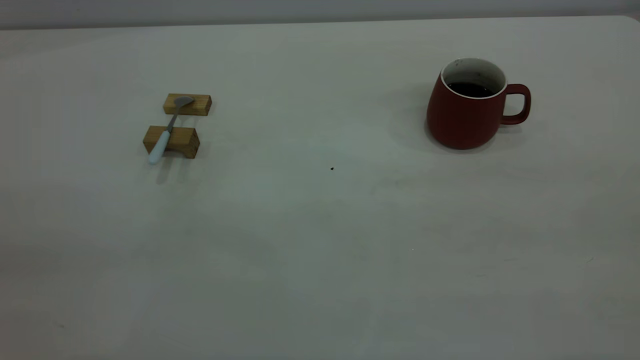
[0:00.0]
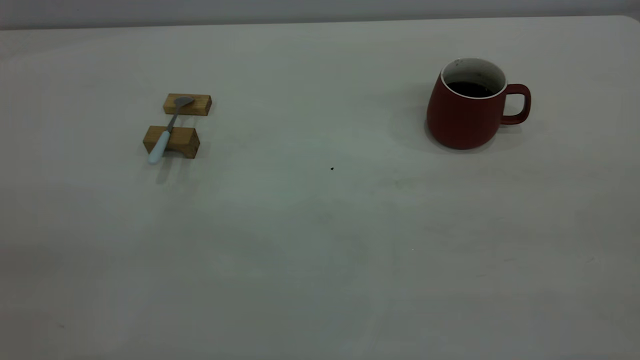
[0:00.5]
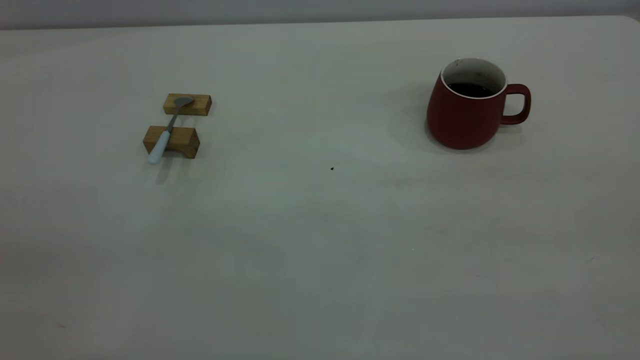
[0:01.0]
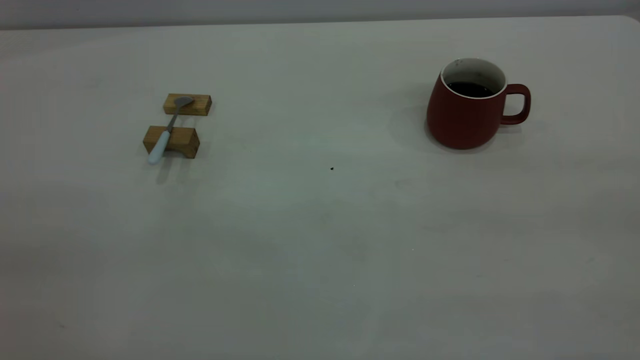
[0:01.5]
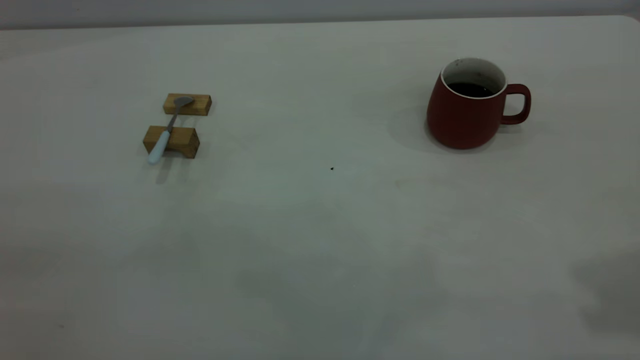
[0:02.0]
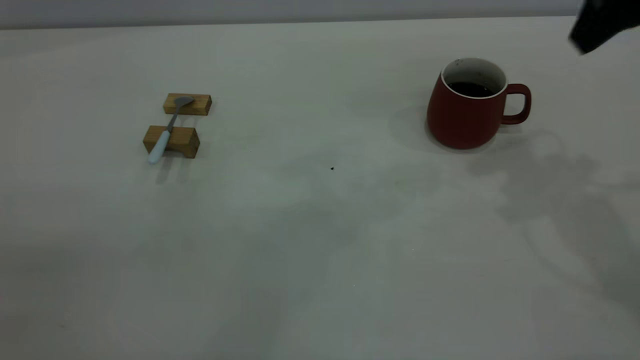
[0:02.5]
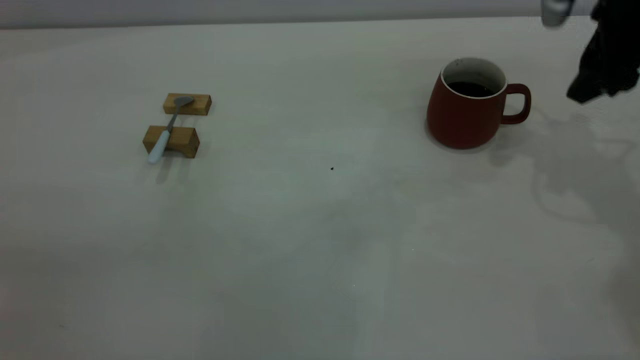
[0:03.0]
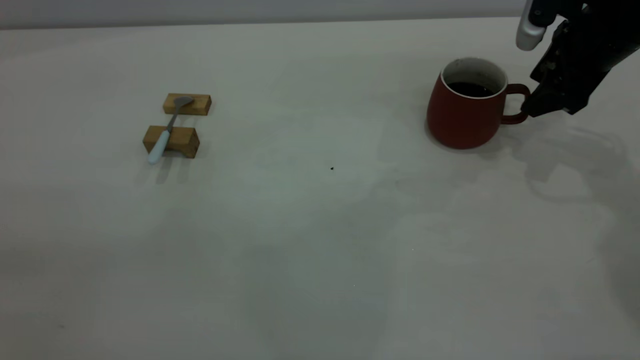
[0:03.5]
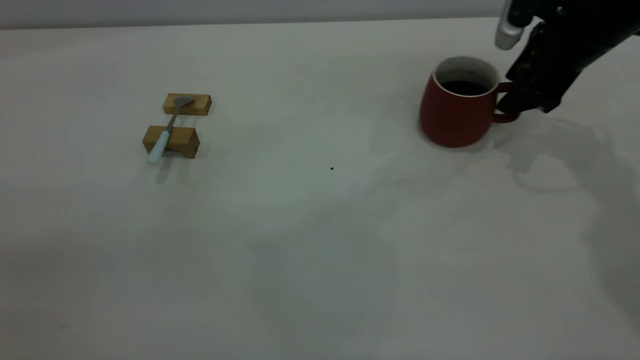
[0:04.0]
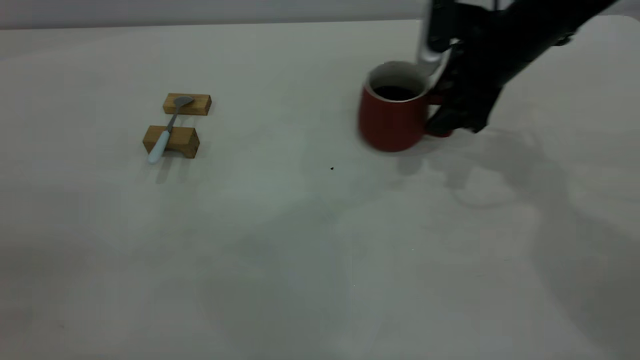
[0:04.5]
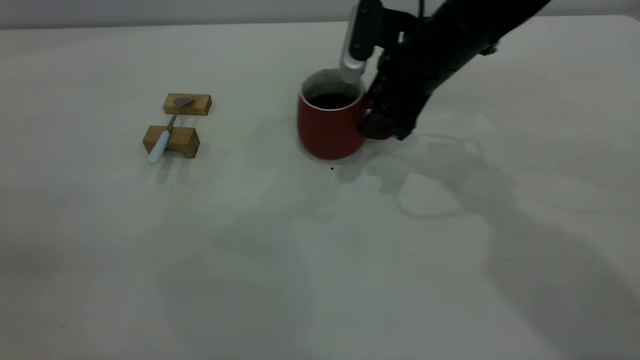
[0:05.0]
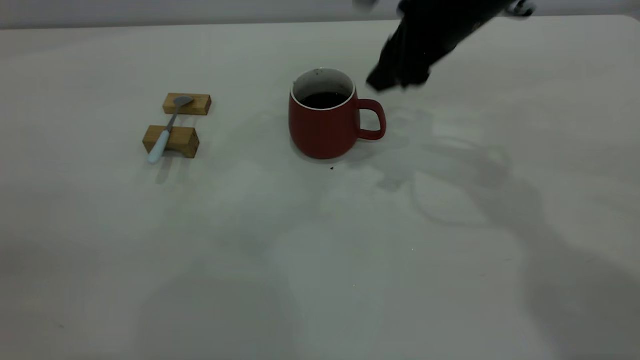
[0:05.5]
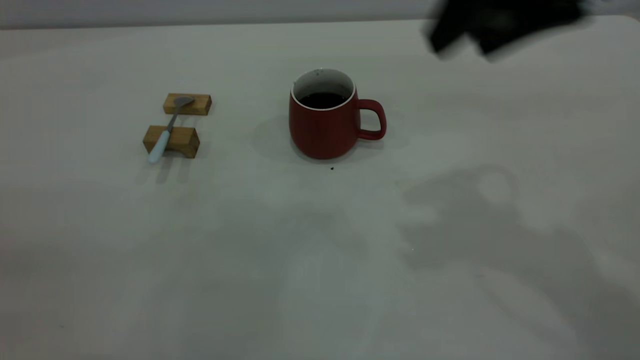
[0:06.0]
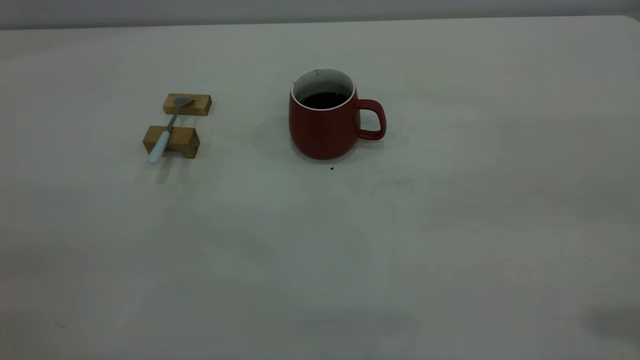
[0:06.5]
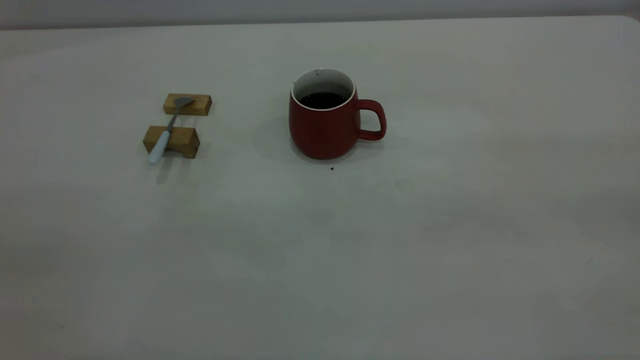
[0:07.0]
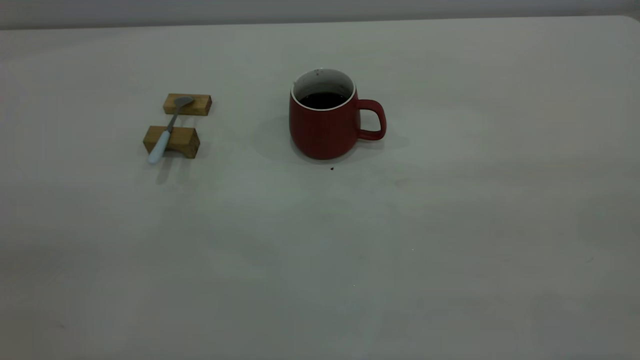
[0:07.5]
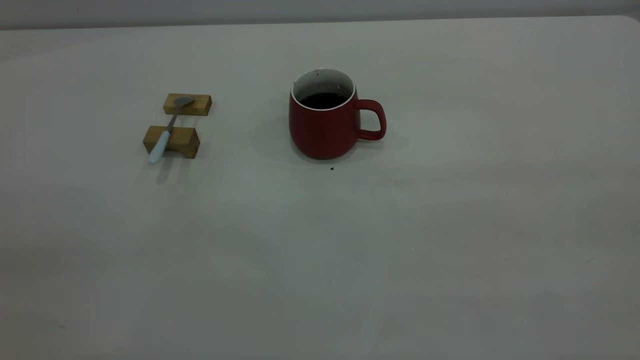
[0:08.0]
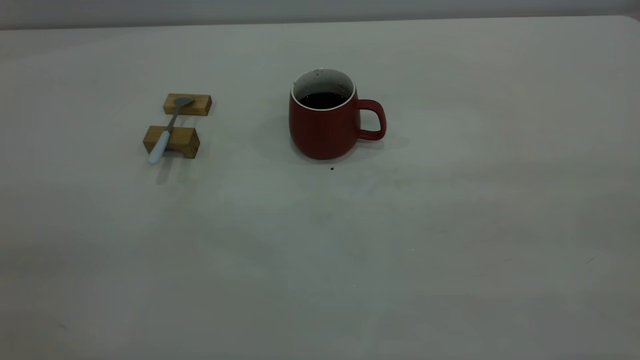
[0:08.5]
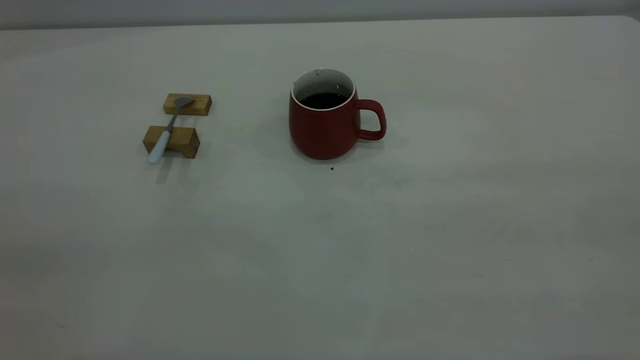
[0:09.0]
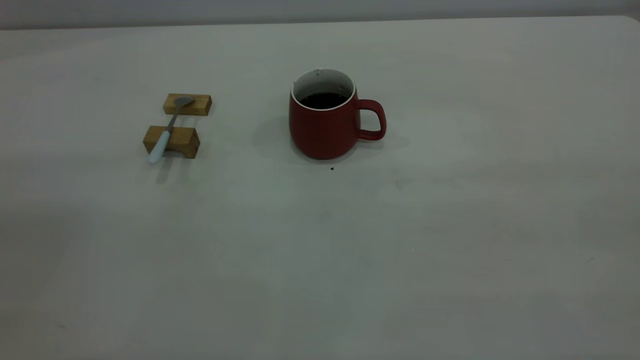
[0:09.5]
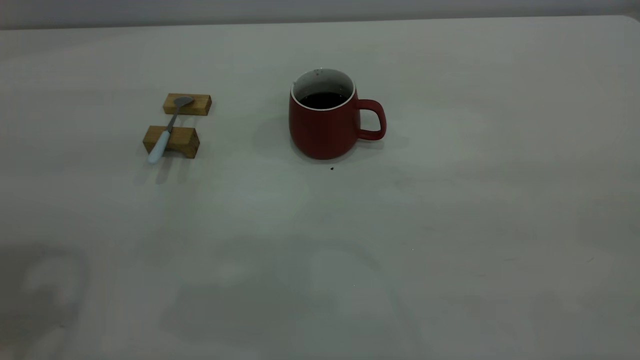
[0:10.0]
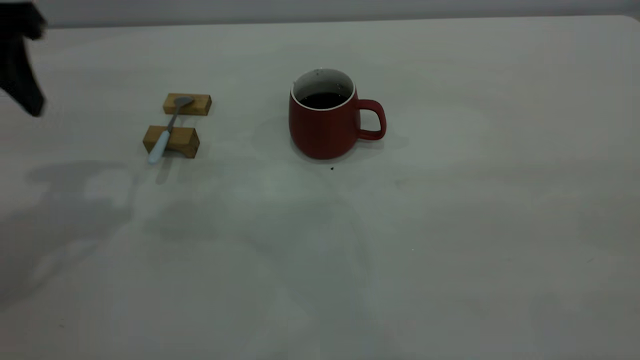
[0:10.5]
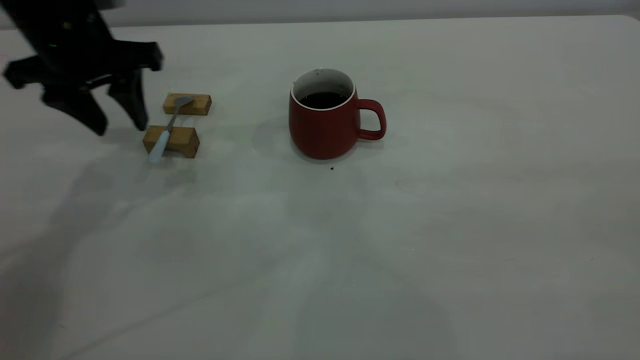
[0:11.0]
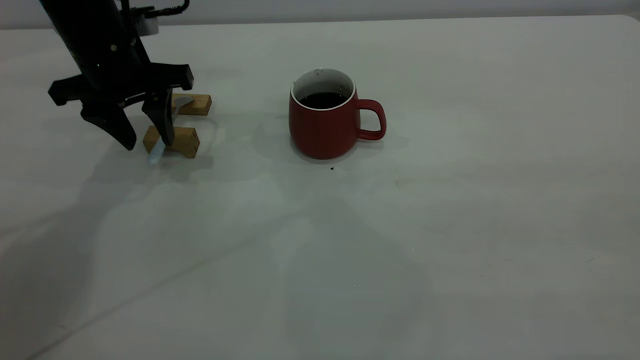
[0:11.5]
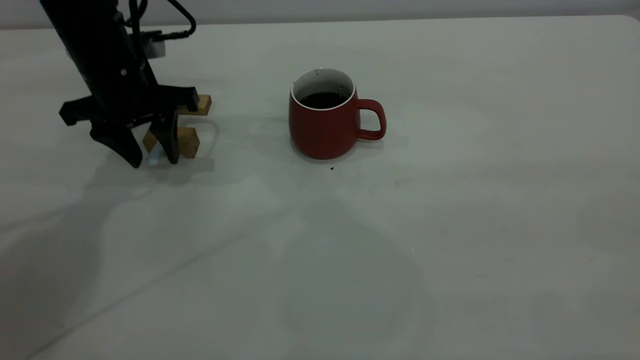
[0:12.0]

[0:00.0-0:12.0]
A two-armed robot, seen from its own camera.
Step, 0:00.0 to 0:05.5: Move the cup with coffee to the center of view.
0:02.0 to 0:04.0: The right gripper moves forward and downward, some 35 cm.
0:04.0 to 0:06.0: The right gripper moves upward, backward and to the left, roughly 25 cm.
0:06.0 to 0:08.0: The right gripper is displaced backward and to the right by about 30 cm.
0:10.0 to 0:12.0: The left gripper heads downward and forward, covering approximately 30 cm.

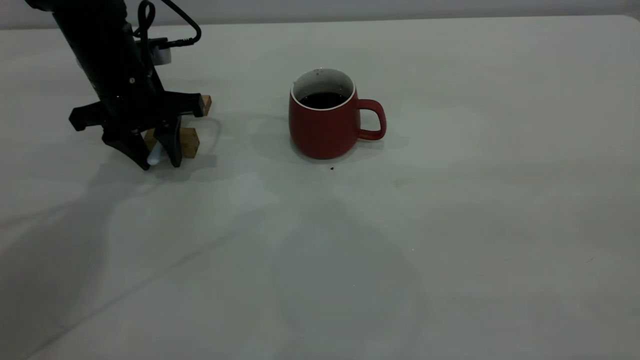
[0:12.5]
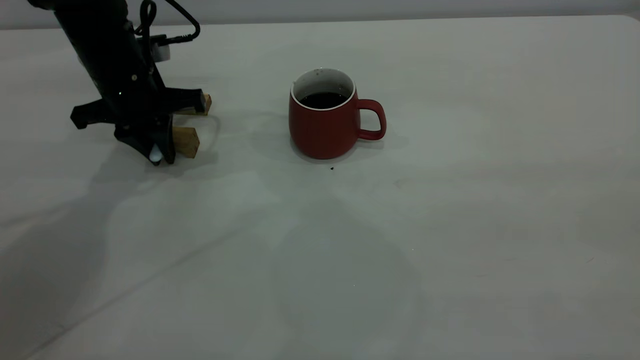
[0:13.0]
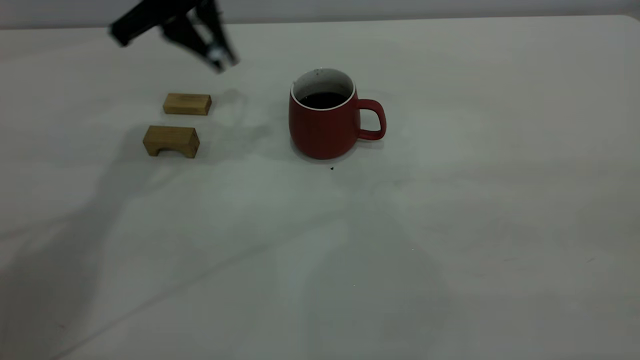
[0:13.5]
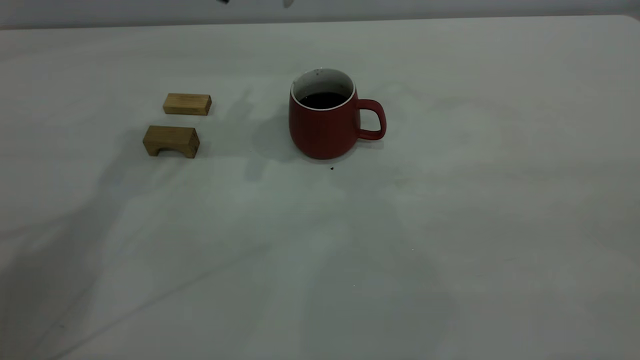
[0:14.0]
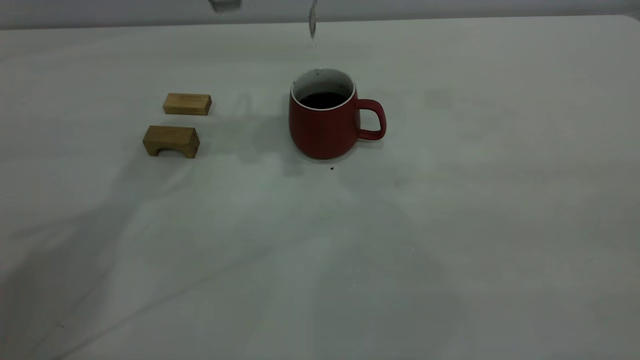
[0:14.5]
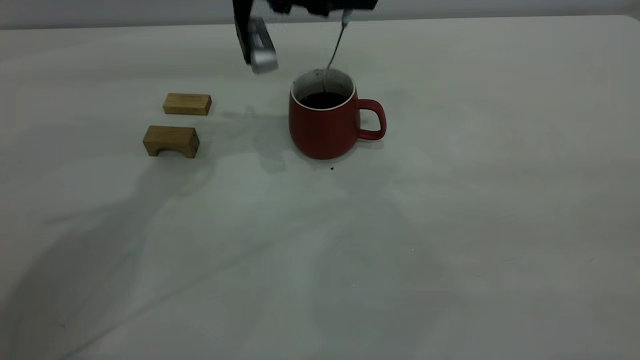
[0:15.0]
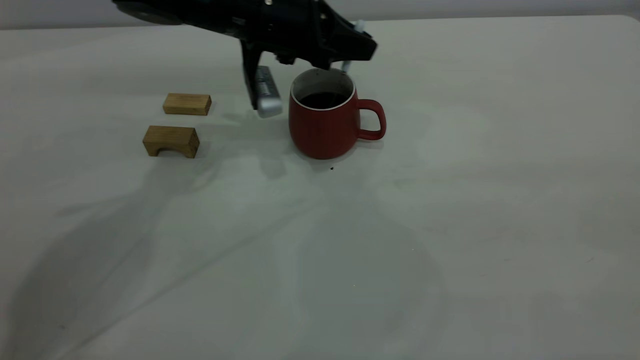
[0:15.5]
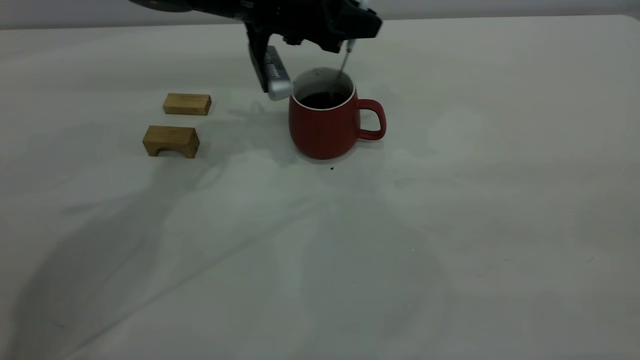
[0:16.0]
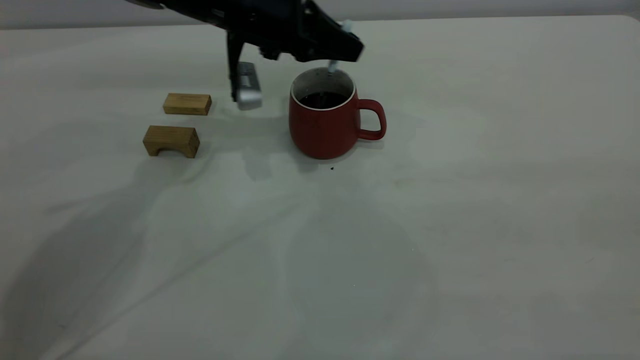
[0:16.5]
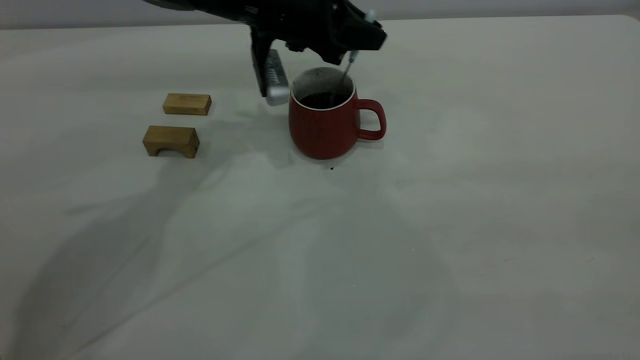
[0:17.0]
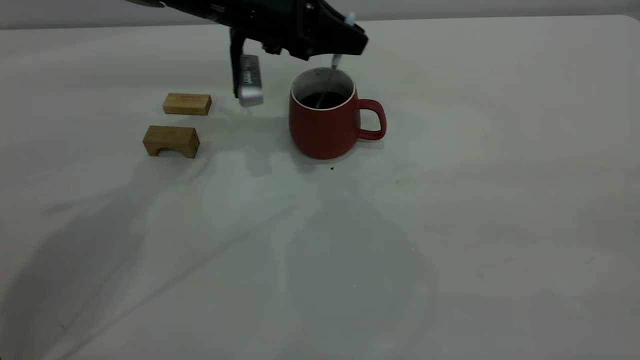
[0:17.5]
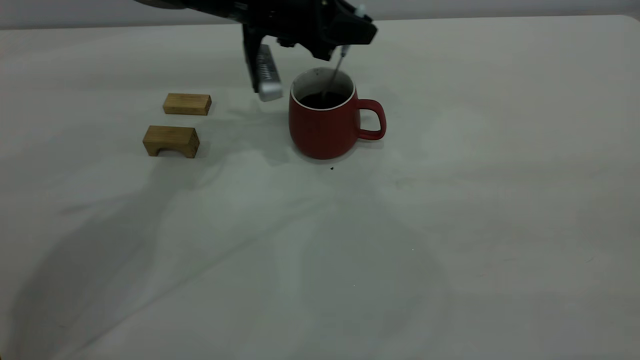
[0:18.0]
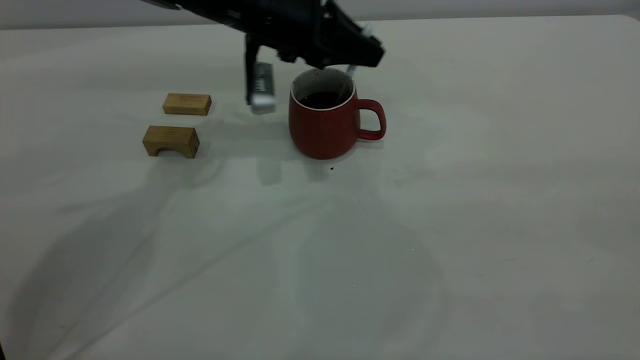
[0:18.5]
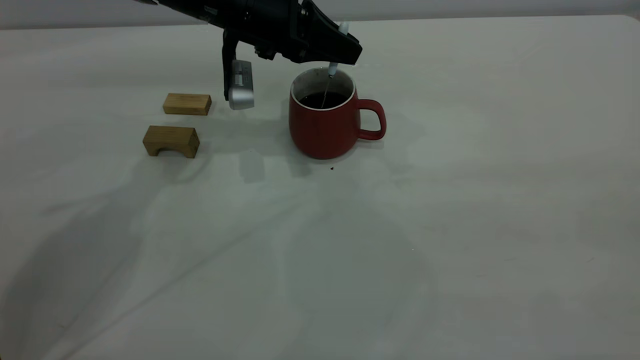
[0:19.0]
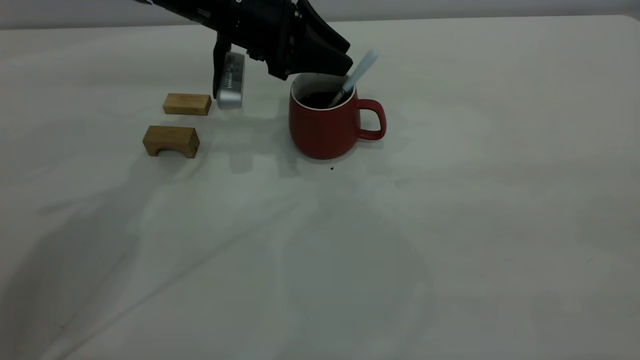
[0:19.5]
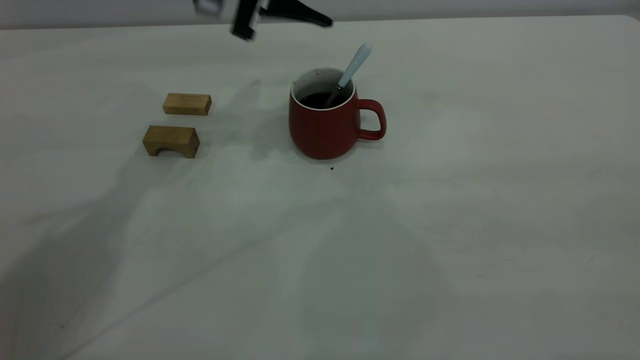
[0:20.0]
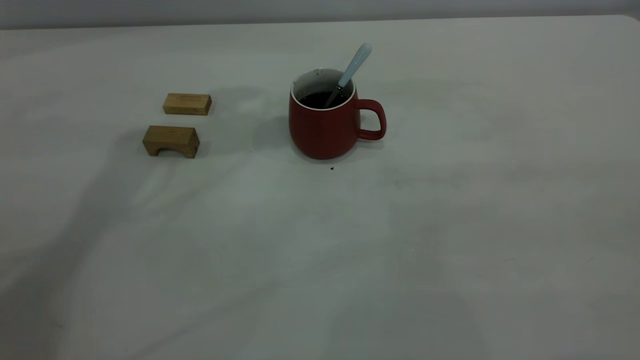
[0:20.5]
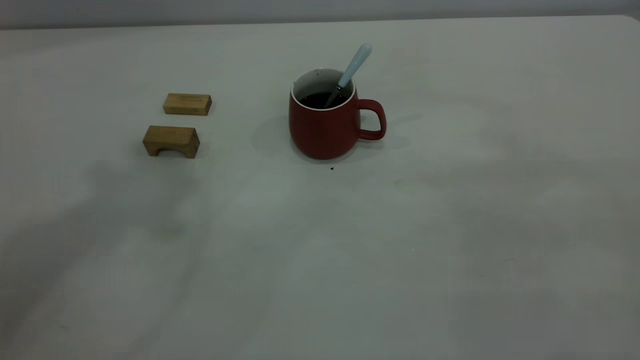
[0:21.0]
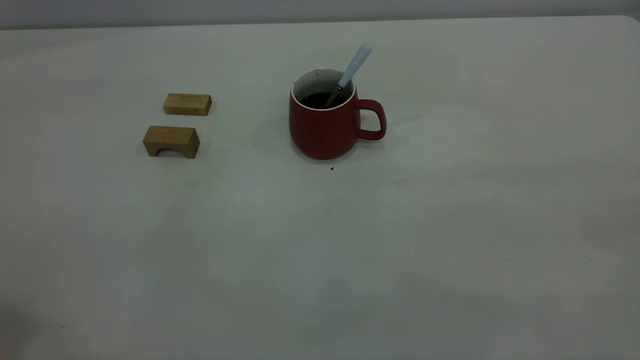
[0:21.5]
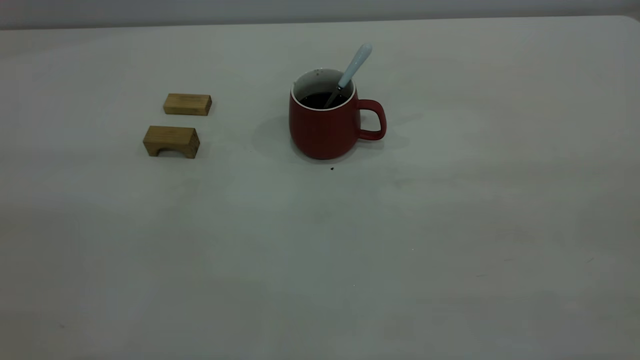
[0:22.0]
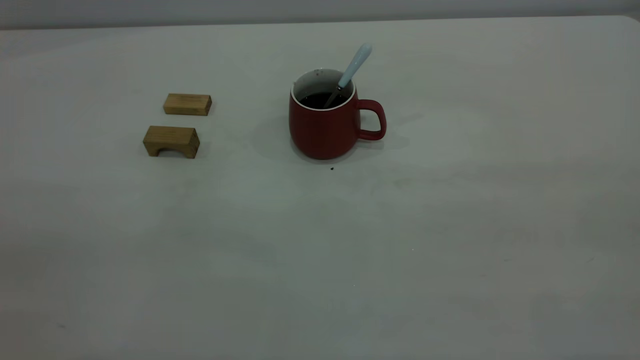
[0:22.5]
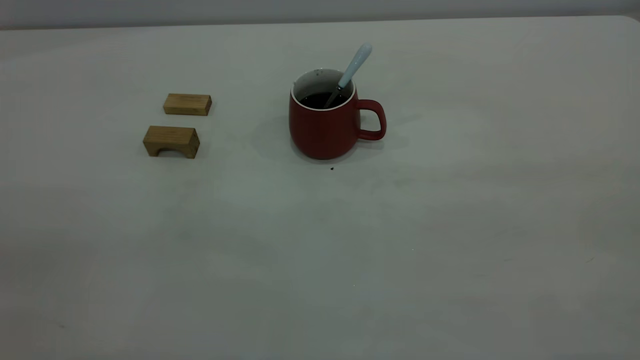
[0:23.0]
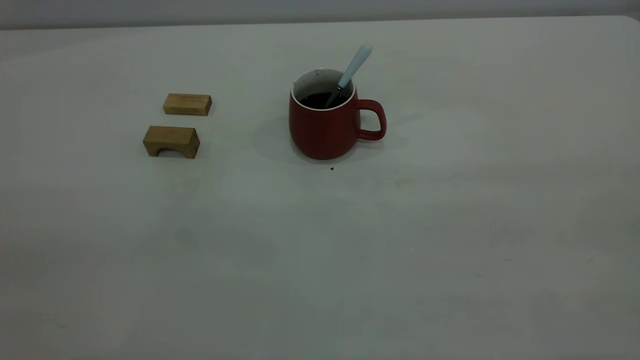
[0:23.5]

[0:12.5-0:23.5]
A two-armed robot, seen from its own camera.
Step, 0:13.5 to 0:19.5: Stir the coffee in the cup.
0:12.5 to 0:14.5: The left gripper is displaced upward and to the right by some 20 cm, and closes up.
0:14.5 to 0:16.0: The left gripper travels downward by some 10 cm.
0:16.0 to 0:18.0: The grippers make only small movements.
0:18.0 to 0:20.0: The left gripper moves upward, some 10 cm, and opens its fingers.
0:20.0 to 0:21.5: The left gripper goes some 50 cm backward, upward and to the left.
